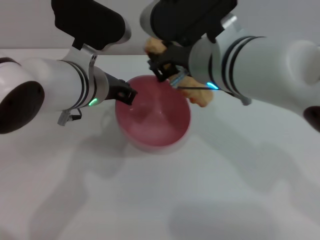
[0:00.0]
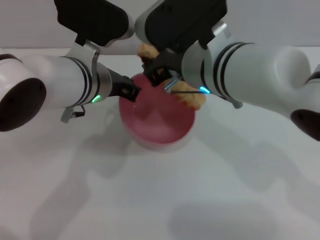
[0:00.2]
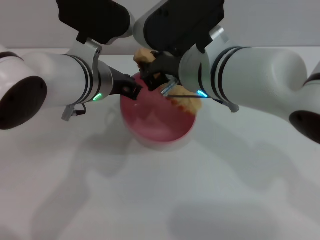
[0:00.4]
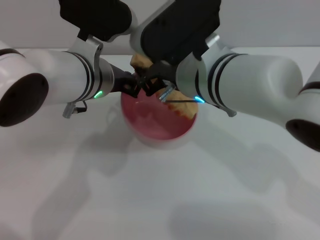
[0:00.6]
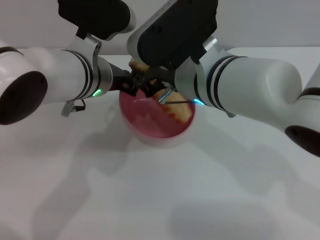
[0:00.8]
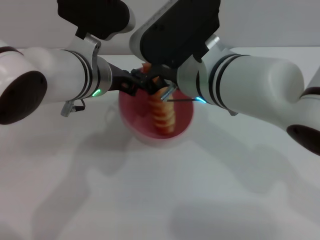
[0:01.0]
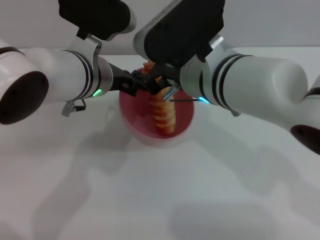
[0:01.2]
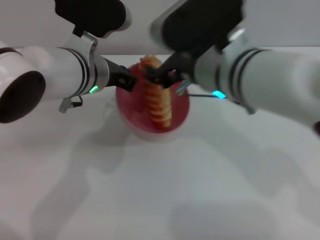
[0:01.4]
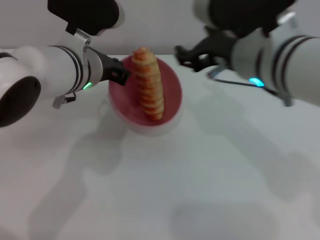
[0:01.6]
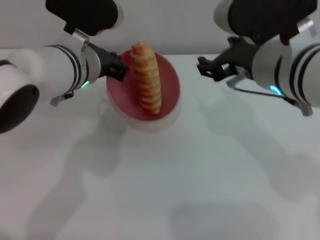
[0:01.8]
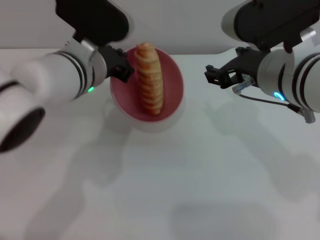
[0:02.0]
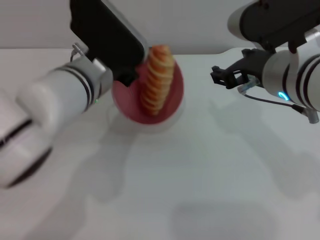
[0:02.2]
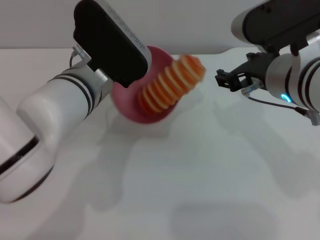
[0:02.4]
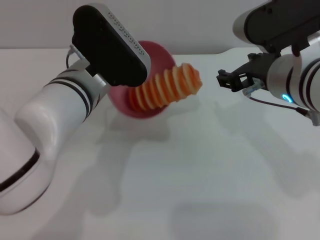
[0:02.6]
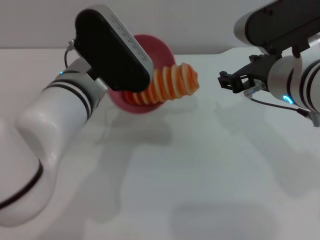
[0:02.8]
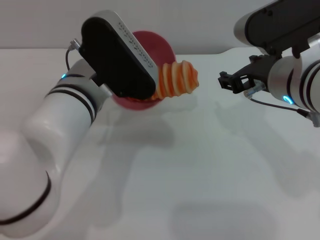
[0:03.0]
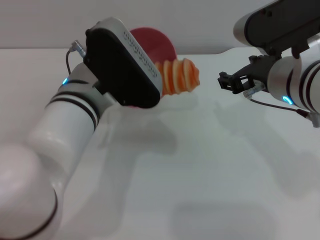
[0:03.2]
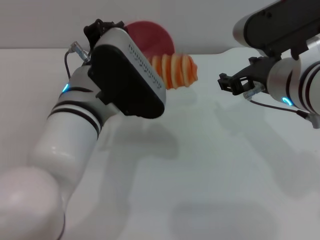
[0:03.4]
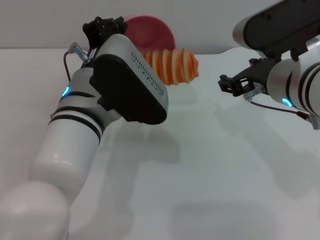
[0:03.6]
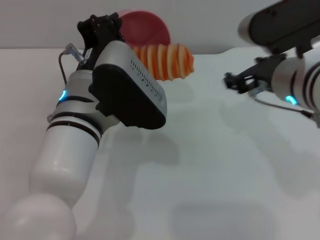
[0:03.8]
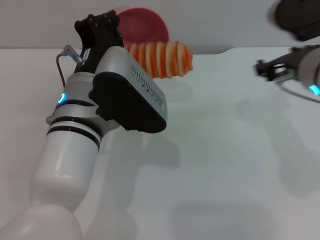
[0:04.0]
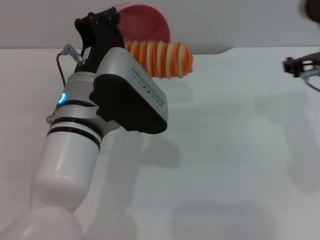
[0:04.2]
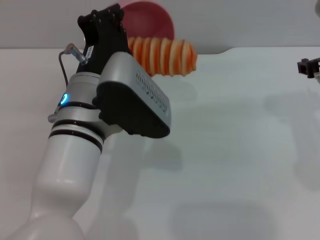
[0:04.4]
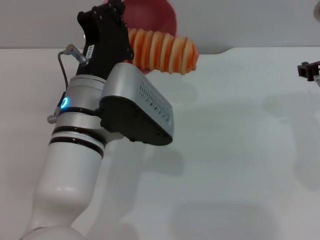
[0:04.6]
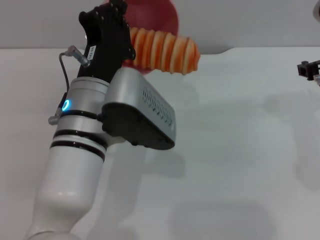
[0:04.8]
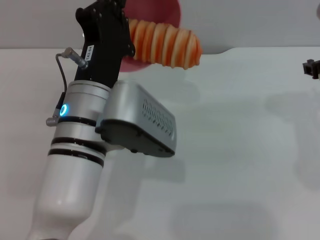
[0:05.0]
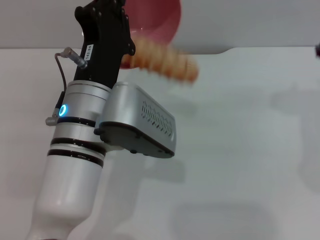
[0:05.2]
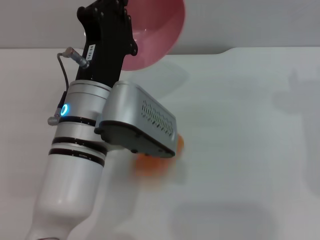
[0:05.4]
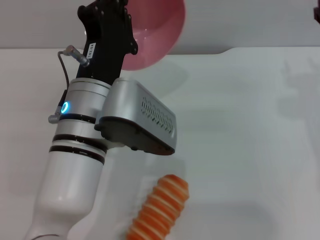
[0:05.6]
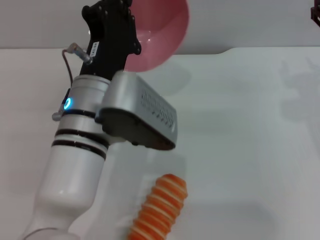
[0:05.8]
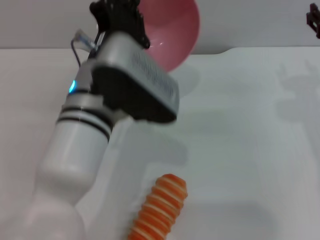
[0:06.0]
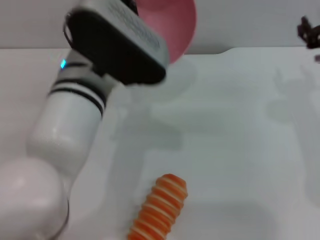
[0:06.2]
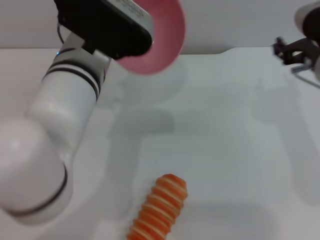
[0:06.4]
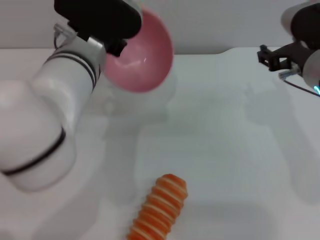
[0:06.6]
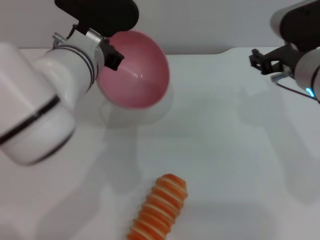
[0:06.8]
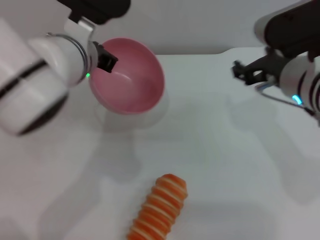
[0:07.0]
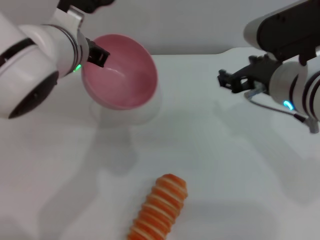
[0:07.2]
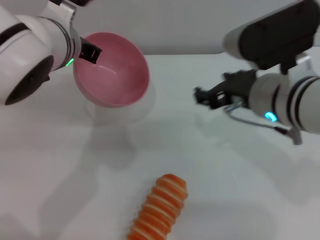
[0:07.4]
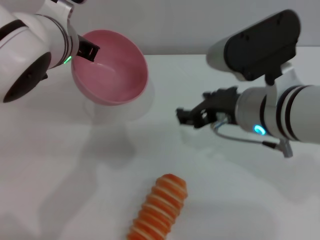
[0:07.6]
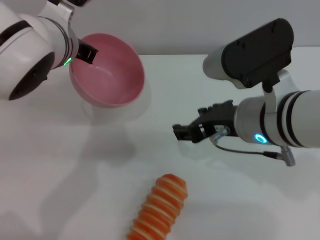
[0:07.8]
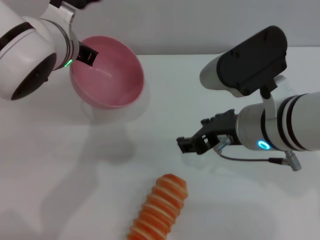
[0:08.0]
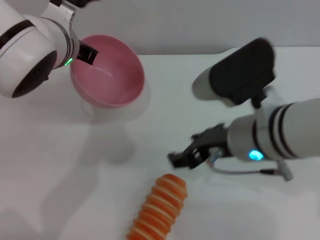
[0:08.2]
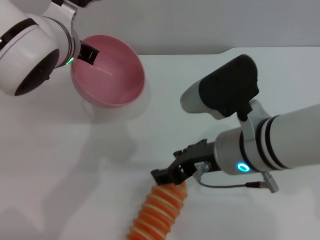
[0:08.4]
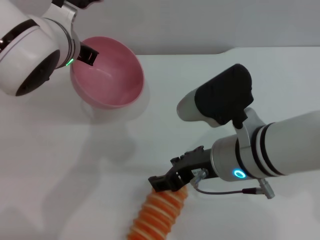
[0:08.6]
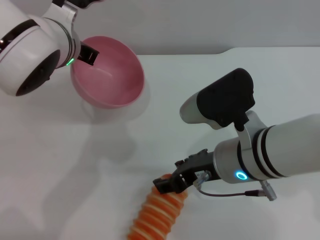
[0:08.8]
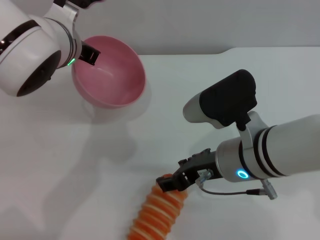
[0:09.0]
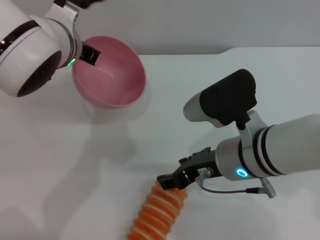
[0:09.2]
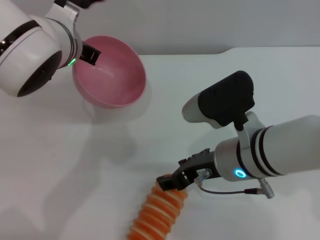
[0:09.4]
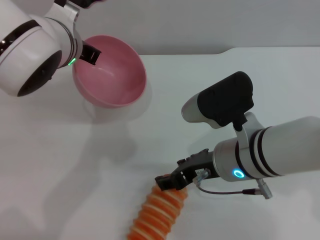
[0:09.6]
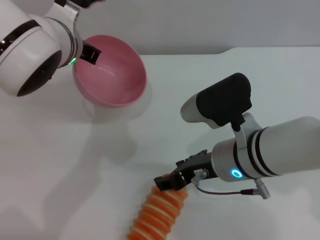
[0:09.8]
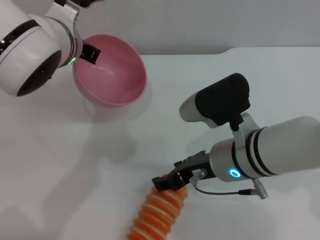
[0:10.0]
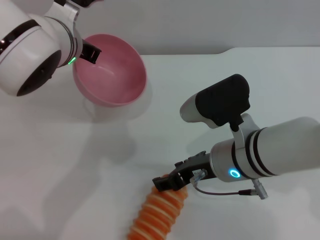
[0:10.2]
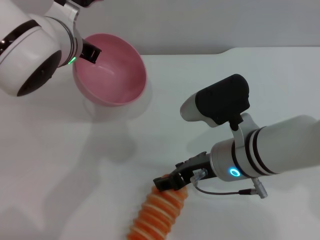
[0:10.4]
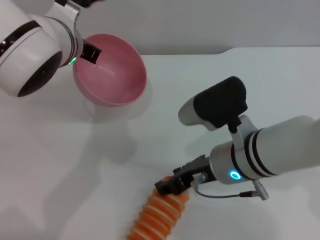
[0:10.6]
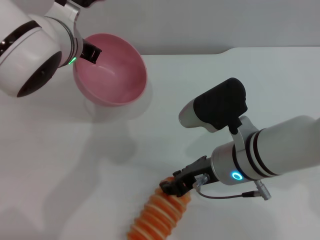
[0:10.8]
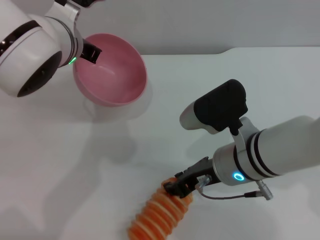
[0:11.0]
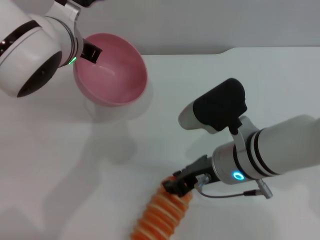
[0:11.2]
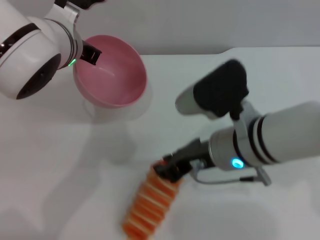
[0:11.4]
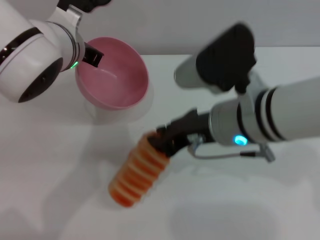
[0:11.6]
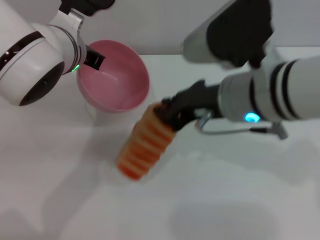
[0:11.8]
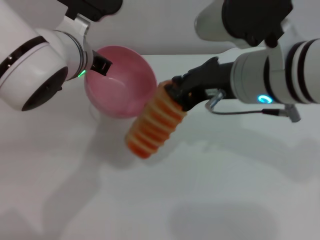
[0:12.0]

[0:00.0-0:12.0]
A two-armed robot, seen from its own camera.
Task of the whole recording: put the bread into the pink bowl and pour it out repeatedly.
Step, 0:00.0 to 0:01.6: Place the bread into the bowl.
Step, 0:01.8 to 0:05.6: Pour the bread out of the bowl.
Step, 0:05.8 to 0:11.8: Pick up the bread with the right gripper.
0:00.0 to 0:01.6: The right gripper opens.
0:01.6 to 0:03.0: The left gripper travels backward by roughly 5 cm, while the right gripper changes place by approximately 5 cm.
0:03.0 to 0:04.4: The right gripper is displaced to the right by approximately 5 cm.
0:06.0 to 0:07.6: The right gripper moves to the left, approximately 15 cm. Meanwhile the left gripper goes some 10 cm forward and upward.
0:07.6 to 0:09.0: The right gripper shifts about 5 cm downward.
0:09.0 to 0:10.4: The grippers make only small movements.
0:10.4 to 0:12.0: The right gripper heads upward, covering about 10 cm, and closes up.

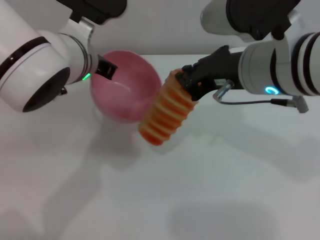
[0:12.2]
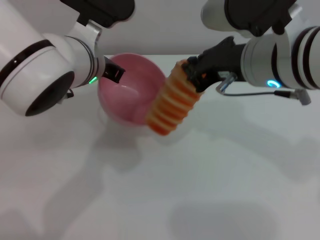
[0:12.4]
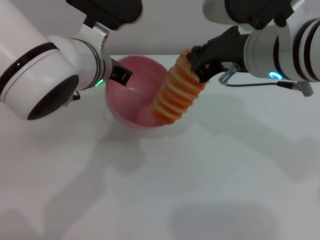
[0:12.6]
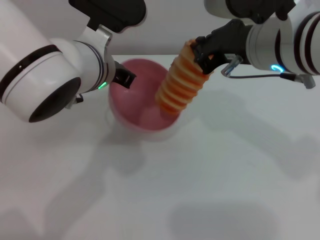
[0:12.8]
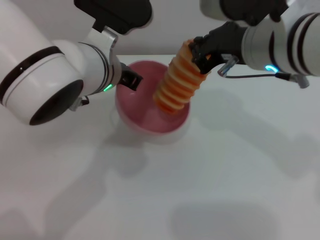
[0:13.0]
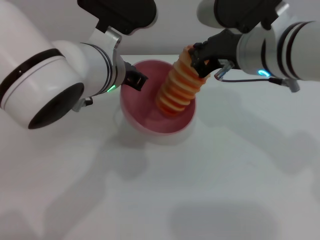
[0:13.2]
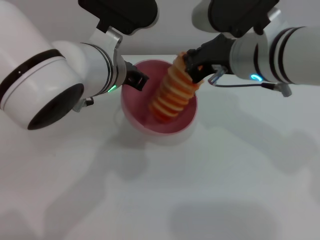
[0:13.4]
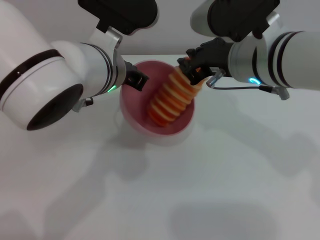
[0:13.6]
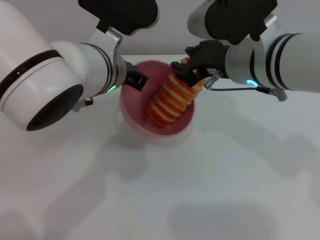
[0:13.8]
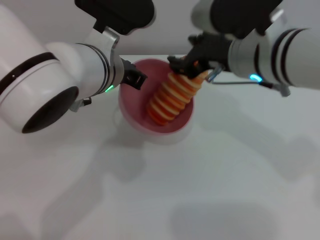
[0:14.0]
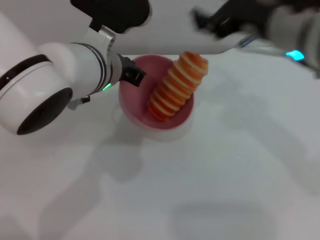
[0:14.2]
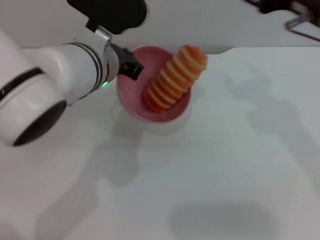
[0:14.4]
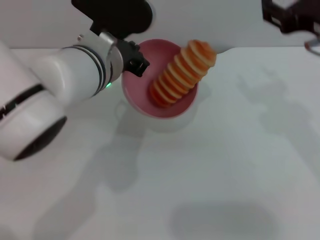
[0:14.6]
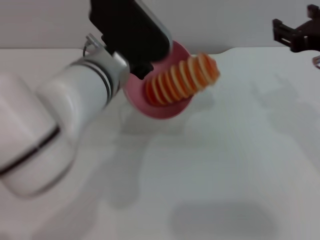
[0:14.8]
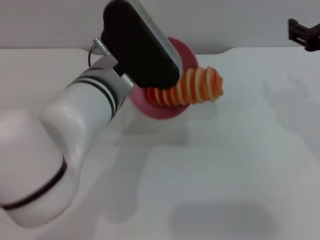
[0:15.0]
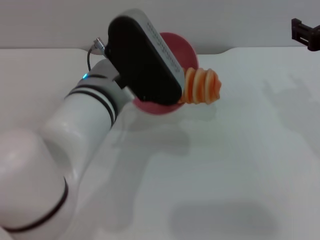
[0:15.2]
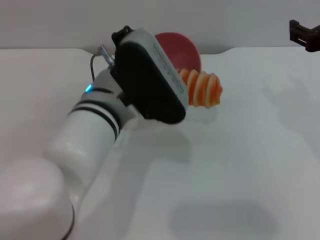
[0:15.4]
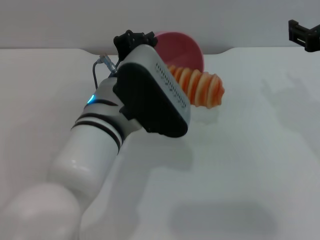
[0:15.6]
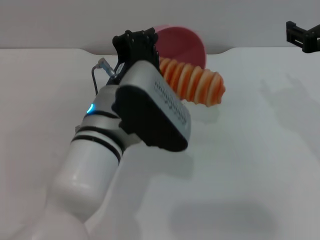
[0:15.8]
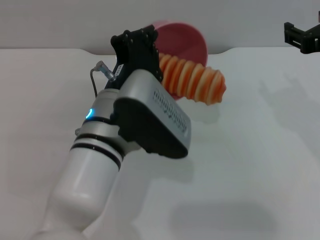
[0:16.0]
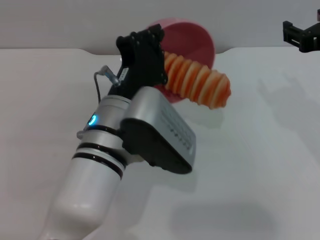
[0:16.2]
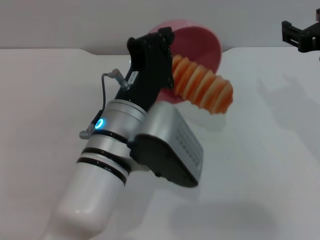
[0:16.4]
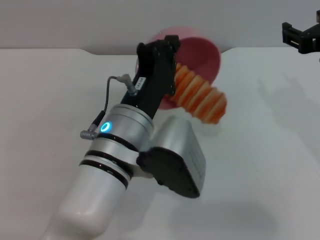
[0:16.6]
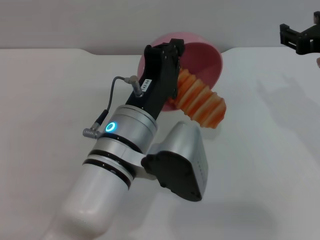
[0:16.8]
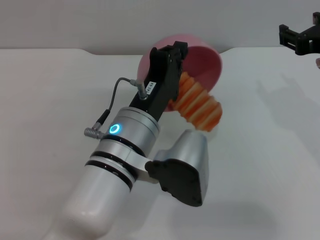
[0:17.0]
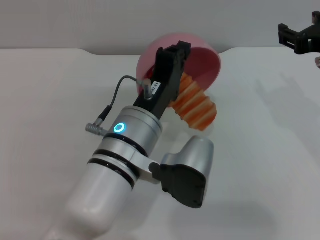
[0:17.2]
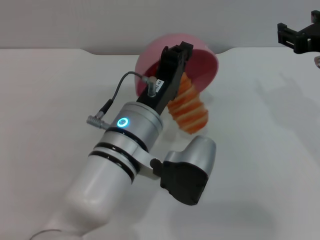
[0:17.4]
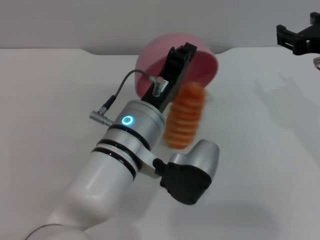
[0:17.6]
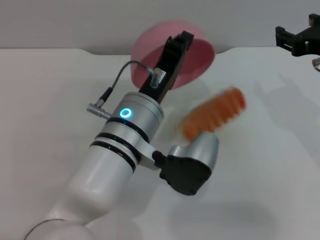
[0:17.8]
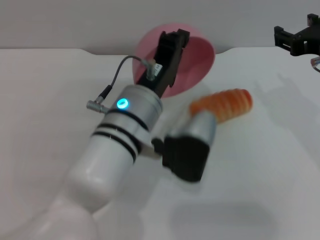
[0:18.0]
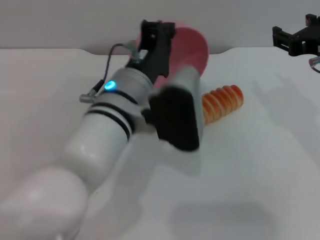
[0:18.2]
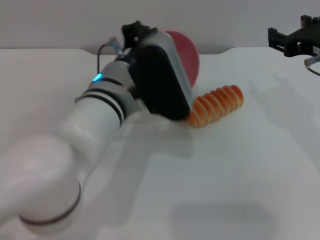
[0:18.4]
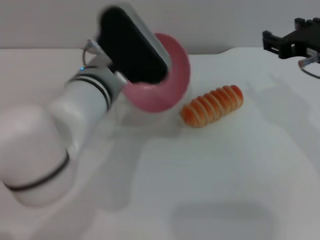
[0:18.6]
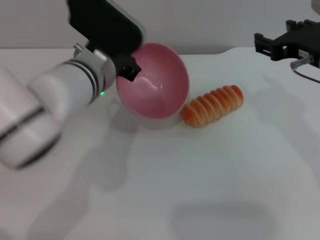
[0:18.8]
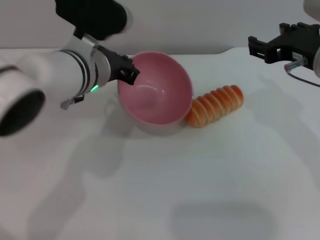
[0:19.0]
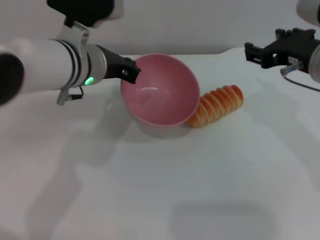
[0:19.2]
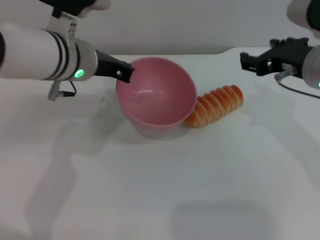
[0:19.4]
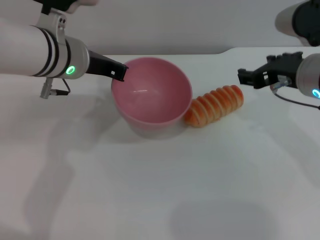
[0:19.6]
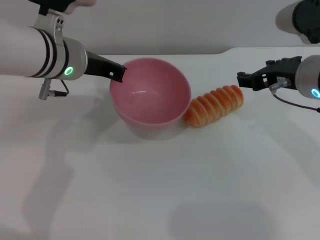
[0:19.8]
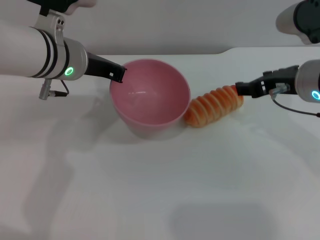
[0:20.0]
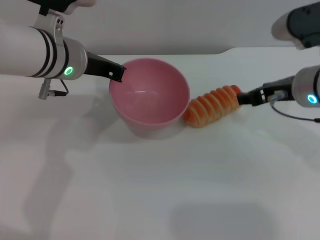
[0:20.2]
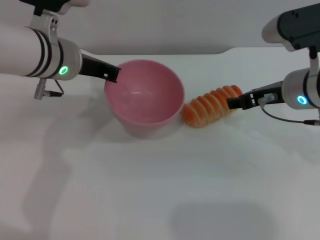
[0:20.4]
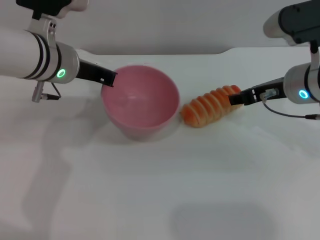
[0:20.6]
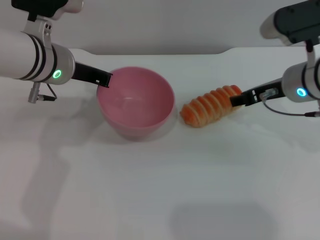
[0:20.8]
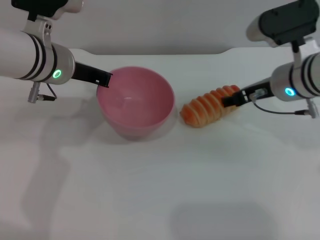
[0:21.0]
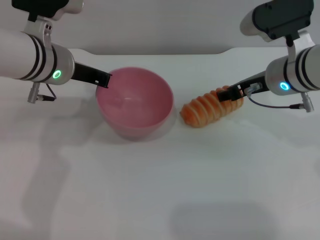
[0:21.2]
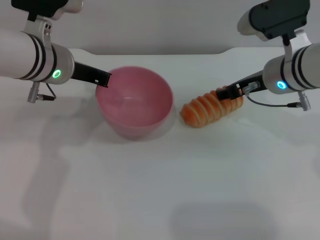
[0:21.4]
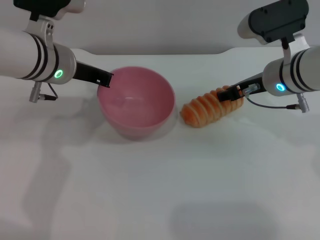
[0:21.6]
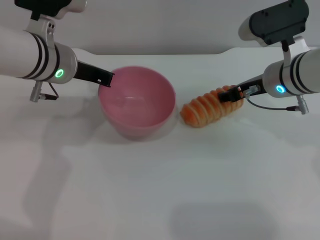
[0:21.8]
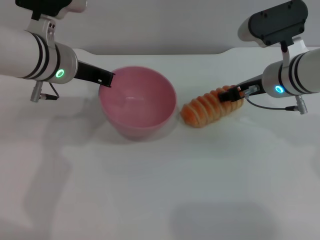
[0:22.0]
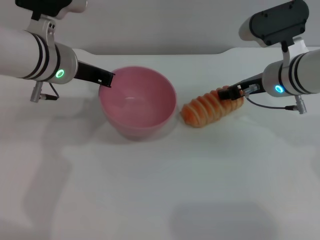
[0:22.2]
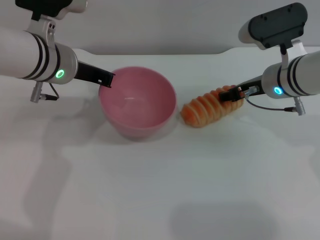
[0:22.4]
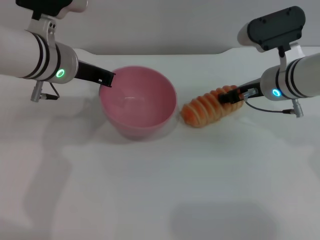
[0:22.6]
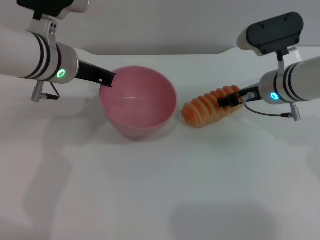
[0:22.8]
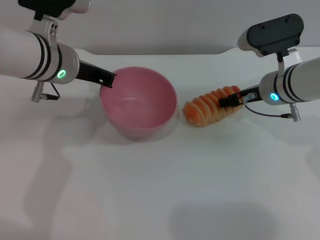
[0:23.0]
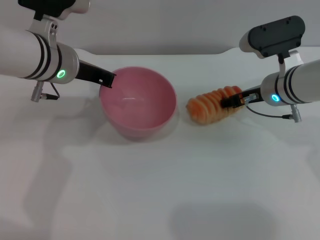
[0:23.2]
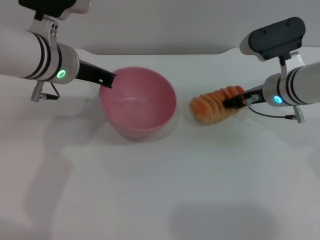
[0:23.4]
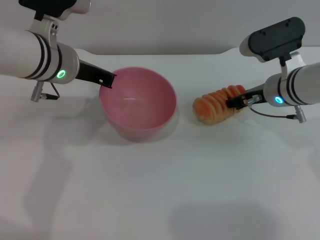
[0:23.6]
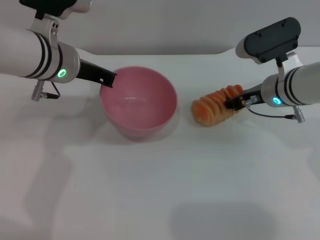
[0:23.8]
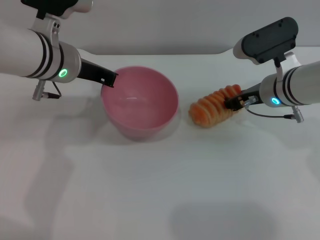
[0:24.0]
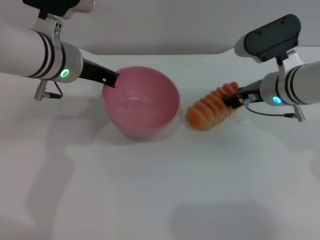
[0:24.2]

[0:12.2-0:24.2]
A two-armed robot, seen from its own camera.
Task of the whole recording: put the bread into the pink bowl and pour it out repeatedly.
Step, 0:12.2 to 0:14.0: Place the bread into the bowl.
Step, 0:14.2 to 0:18.0: Pour the bread out of the bowl.
0:13.8 to 0:15.2: The right gripper goes some 15 cm to the right, and opens its fingers.
0:15.2 to 0:16.6: The left gripper shifts roughly 5 cm backward.
0:16.6 to 0:18.2: The left gripper moves about 5 cm.
0:18.2 to 0:19.8: The left gripper travels to the left and forward by roughly 15 cm.
0:19.8 to 0:21.2: The right gripper shifts some 5 cm forward.
0:21.2 to 0:22.6: The grippers move only a little.
0:22.6 to 0:24.2: The right gripper closes up.
